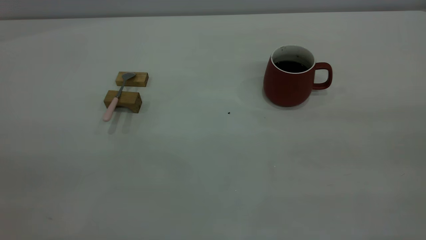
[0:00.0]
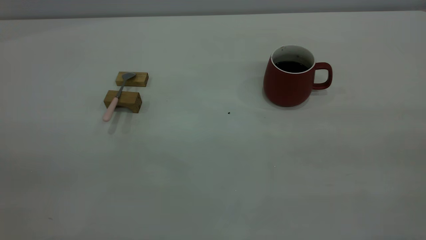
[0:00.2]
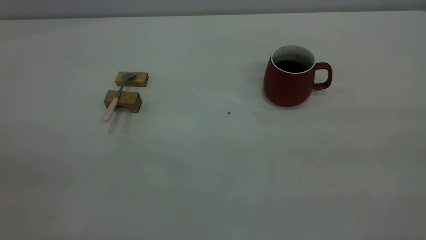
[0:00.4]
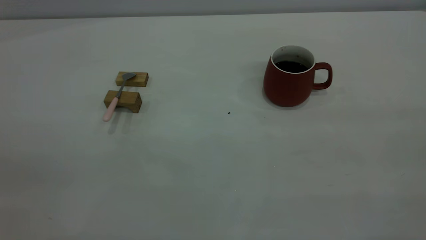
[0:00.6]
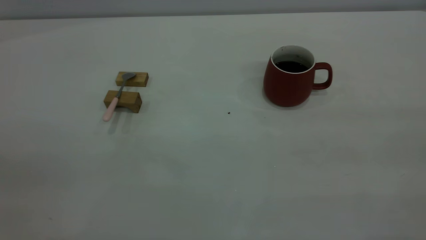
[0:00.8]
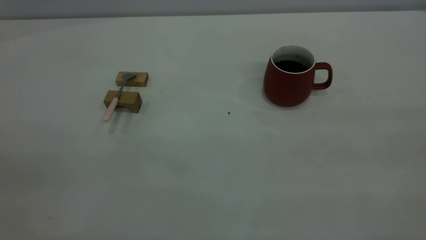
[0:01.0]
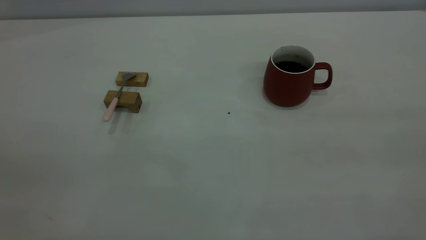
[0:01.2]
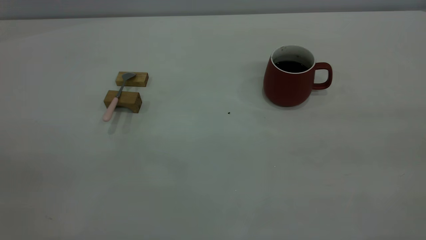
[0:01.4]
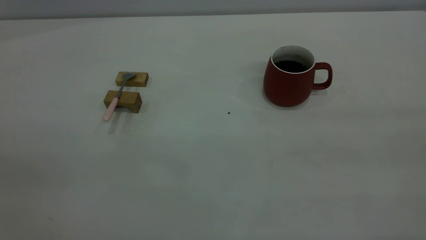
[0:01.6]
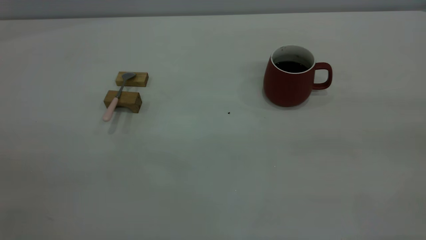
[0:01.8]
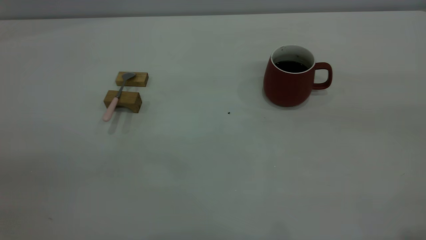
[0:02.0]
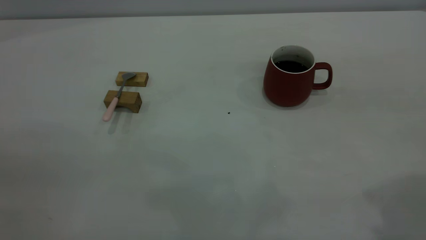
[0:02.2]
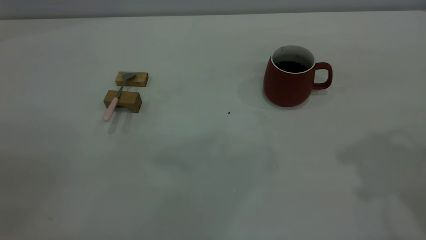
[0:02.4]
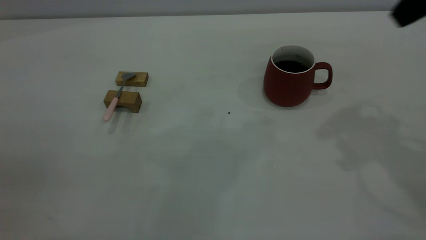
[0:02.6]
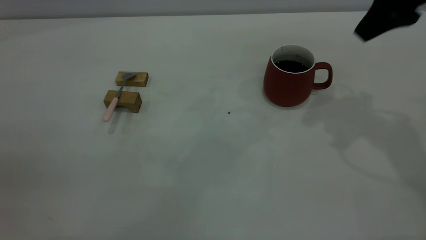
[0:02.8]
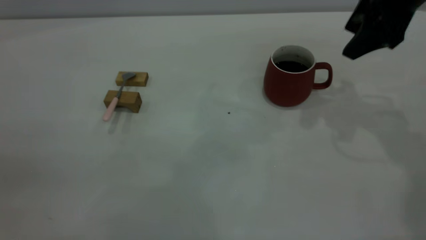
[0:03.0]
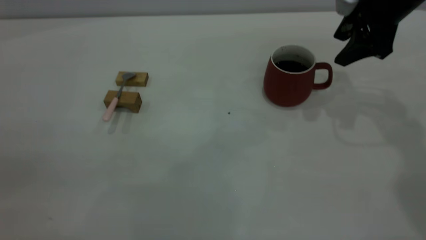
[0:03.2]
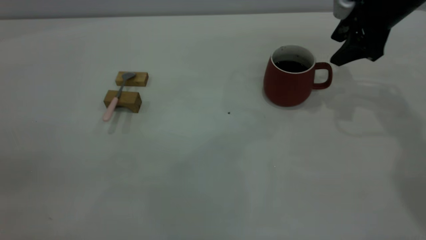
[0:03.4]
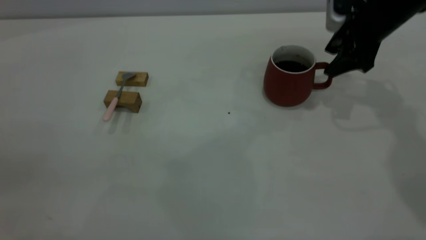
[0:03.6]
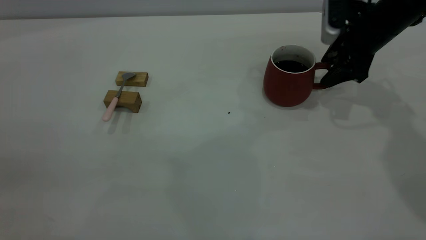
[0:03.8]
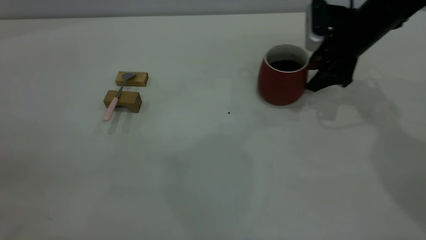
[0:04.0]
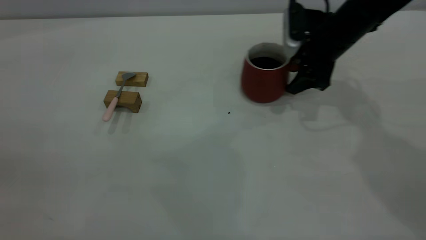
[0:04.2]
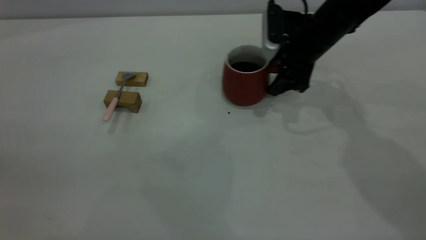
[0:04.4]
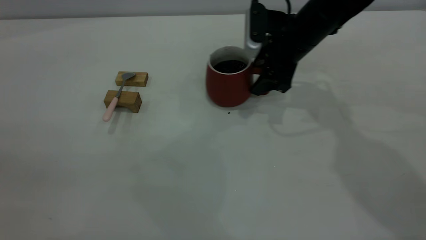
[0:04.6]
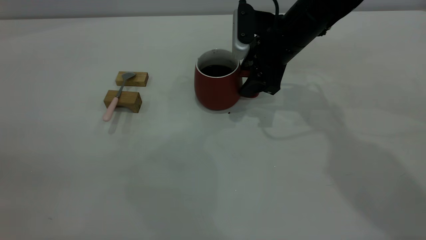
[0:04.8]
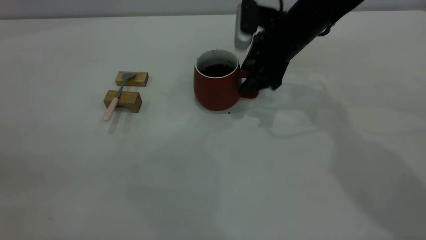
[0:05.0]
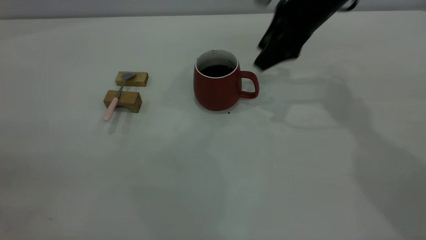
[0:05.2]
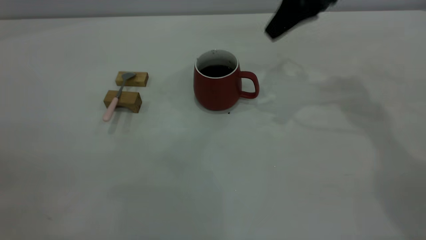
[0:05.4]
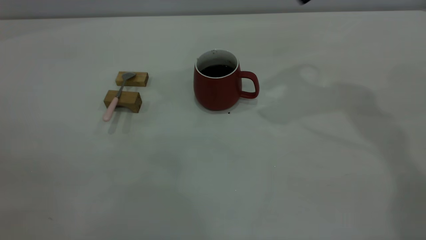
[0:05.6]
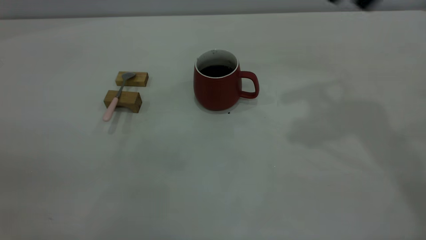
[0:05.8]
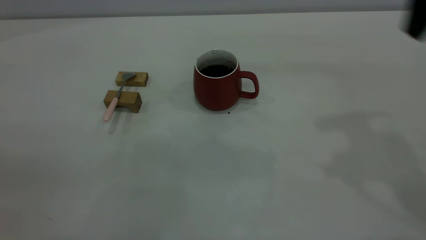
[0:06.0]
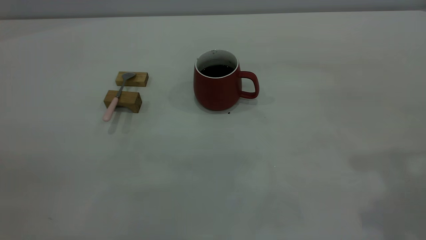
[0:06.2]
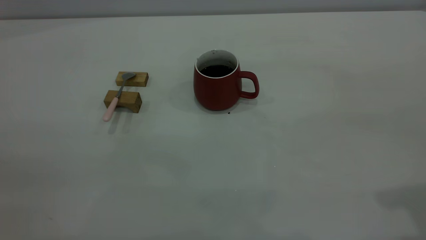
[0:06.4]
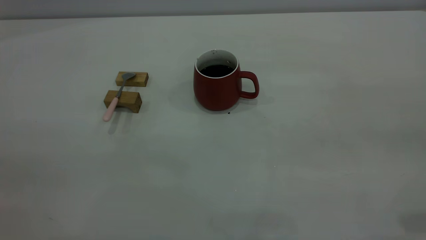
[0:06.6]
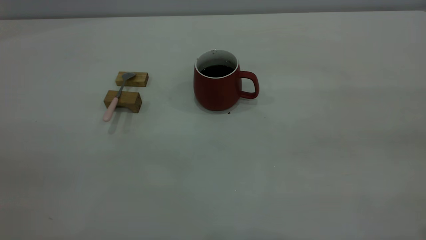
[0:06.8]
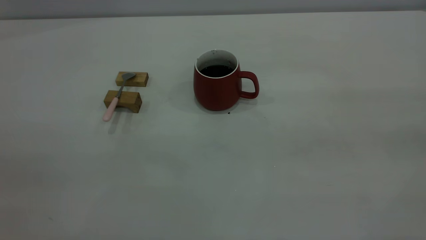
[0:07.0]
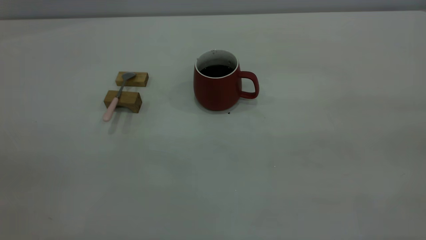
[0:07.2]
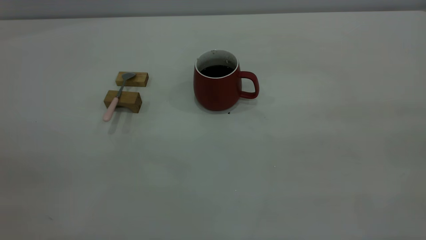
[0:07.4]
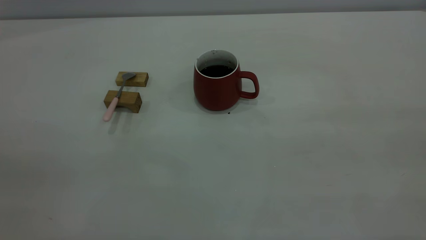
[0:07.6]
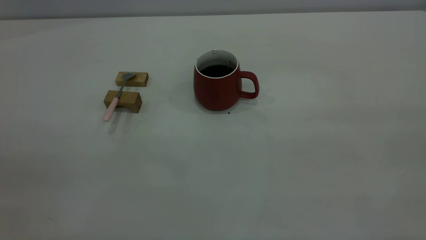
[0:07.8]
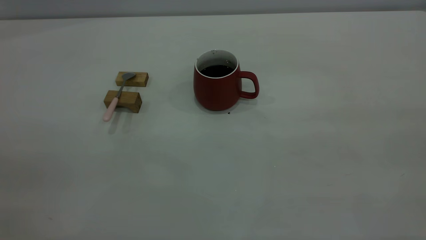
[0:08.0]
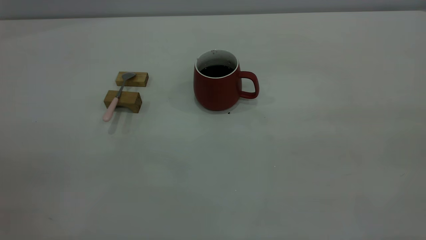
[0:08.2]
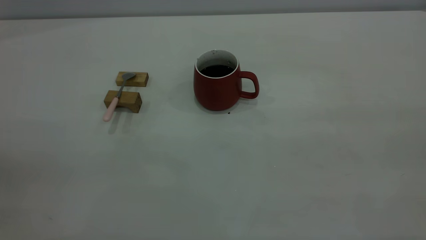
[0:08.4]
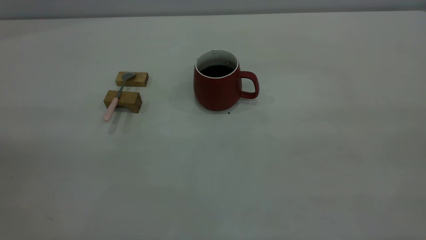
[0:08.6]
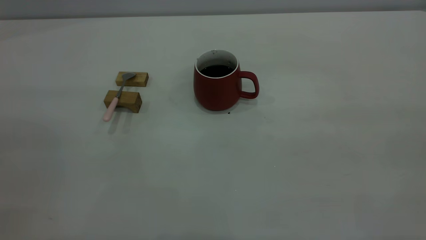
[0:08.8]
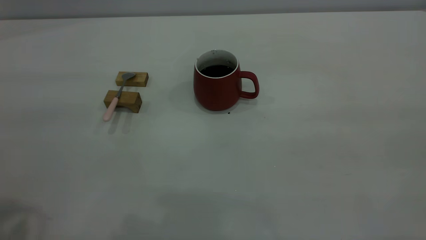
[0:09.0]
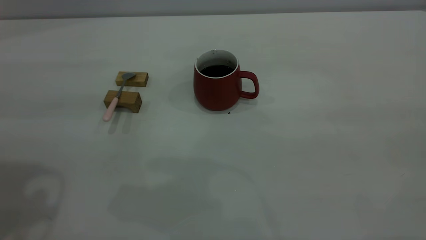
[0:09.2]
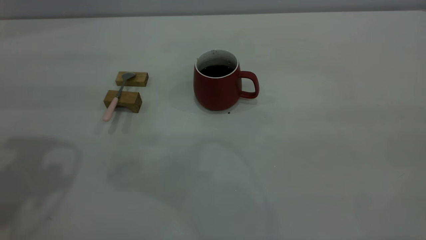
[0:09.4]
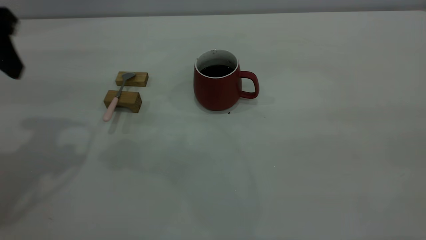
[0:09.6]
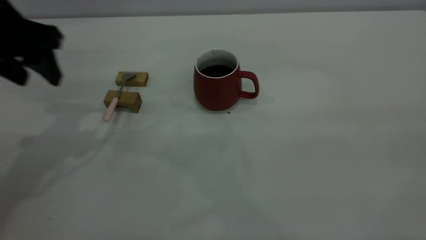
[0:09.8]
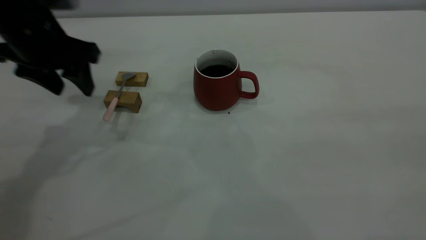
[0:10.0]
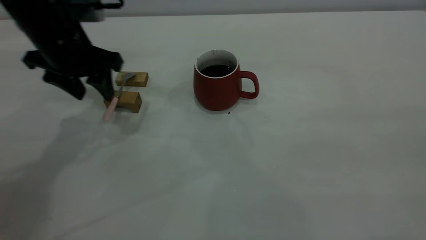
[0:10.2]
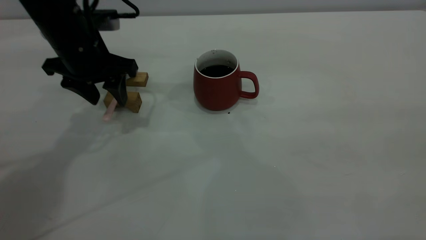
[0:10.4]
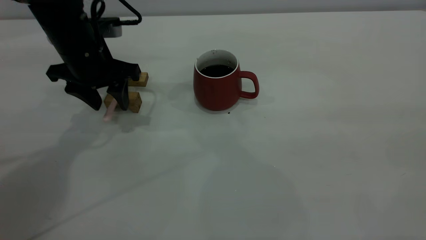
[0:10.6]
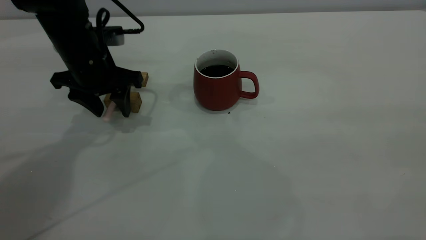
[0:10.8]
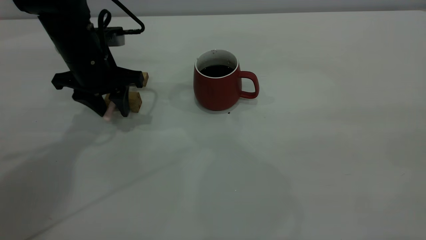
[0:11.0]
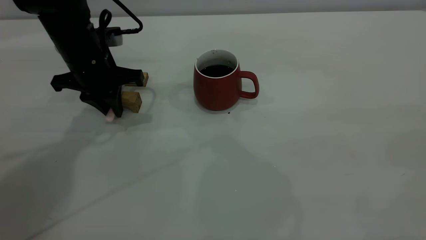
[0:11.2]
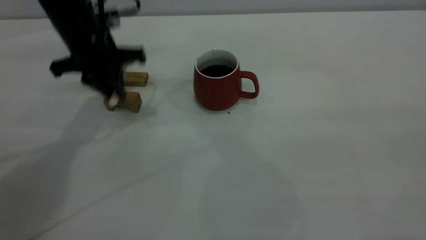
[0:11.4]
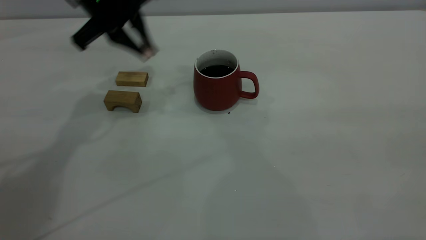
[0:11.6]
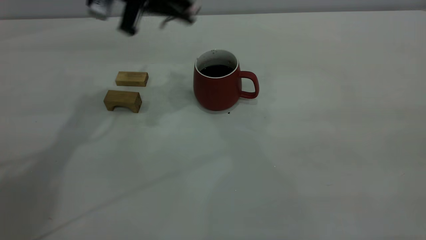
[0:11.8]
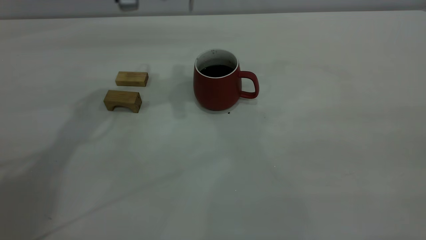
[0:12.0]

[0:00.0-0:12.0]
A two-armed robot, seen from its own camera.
Step, 0:00.0 to 0:05.2: Move the cup with coffee to the center of view.
Step, 0:05.4 to 0:11.4: Pick up the spoon.
0:00.0 to 0:01.6: Both grippers stay about where they are.
0:01.6 to 0:03.0: The right gripper goes some 40 cm forward.
0:03.0 to 0:04.4: The right gripper heads downward, to the left and forward, covering approximately 15 cm.
0:04.4 to 0:06.0: The right gripper goes some 30 cm upward and backward.
0:06.0 to 0:07.6: The right gripper goes some 25 cm backward.
0:09.0 to 0:10.4: The left gripper goes about 30 cm forward and downward.
0:10.4 to 0:12.0: The left gripper travels upward and to the right by some 15 cm, and closes.

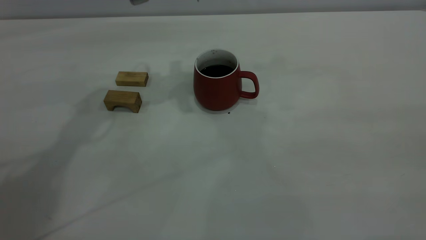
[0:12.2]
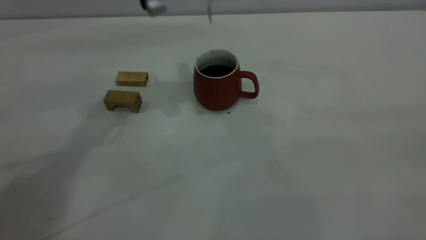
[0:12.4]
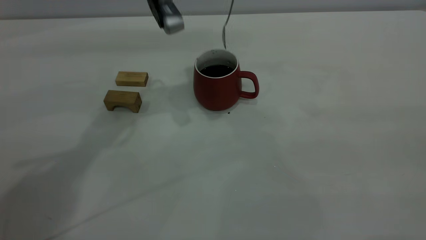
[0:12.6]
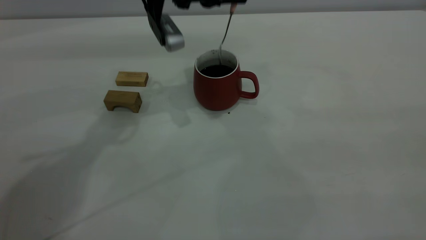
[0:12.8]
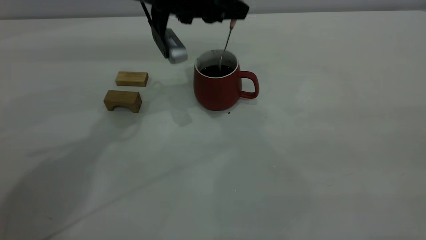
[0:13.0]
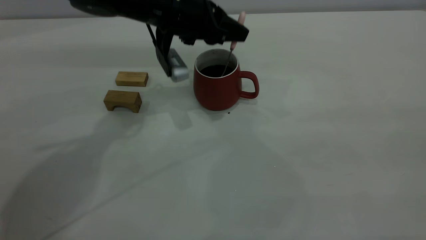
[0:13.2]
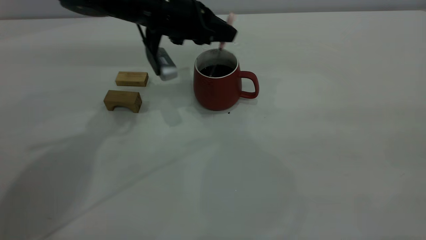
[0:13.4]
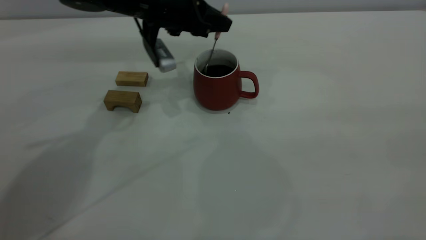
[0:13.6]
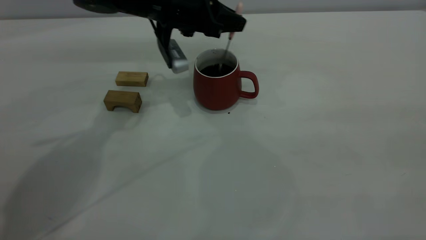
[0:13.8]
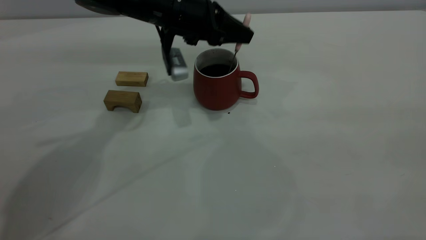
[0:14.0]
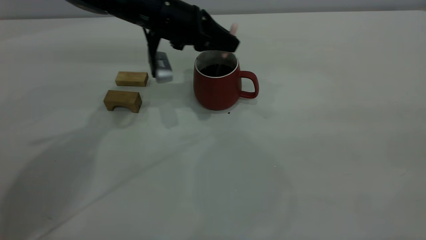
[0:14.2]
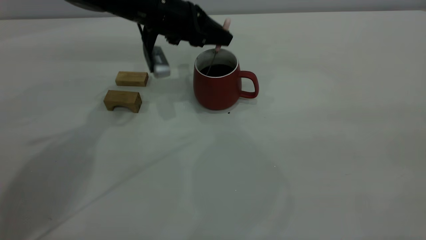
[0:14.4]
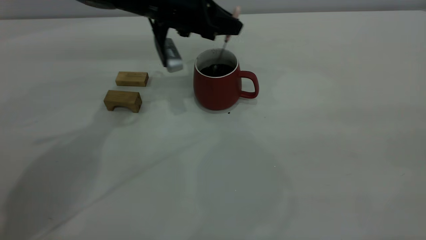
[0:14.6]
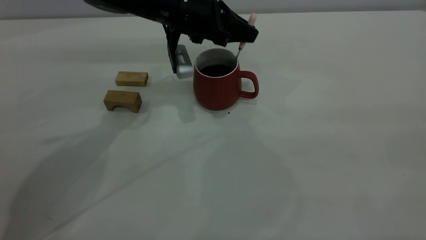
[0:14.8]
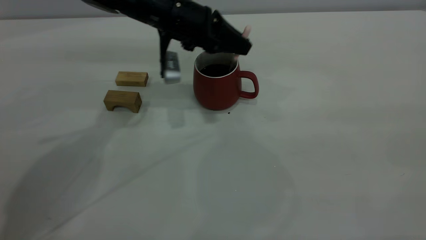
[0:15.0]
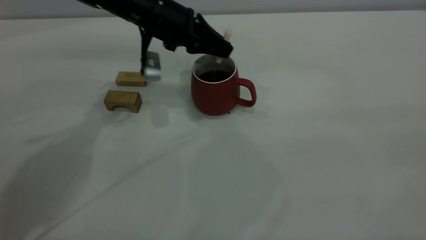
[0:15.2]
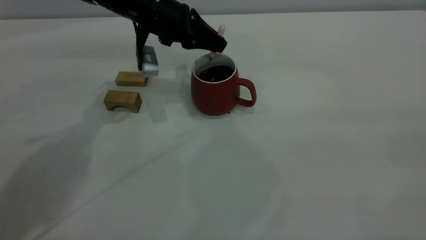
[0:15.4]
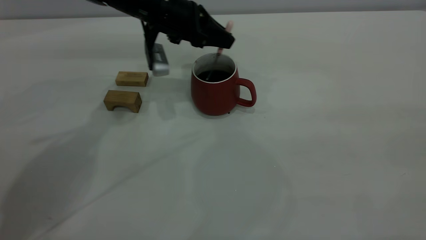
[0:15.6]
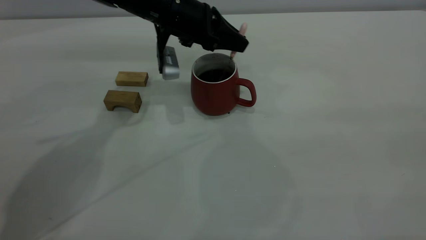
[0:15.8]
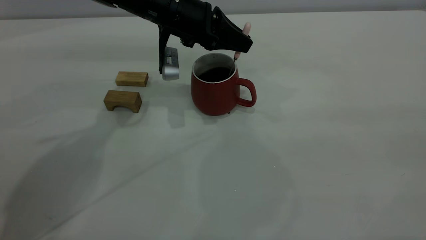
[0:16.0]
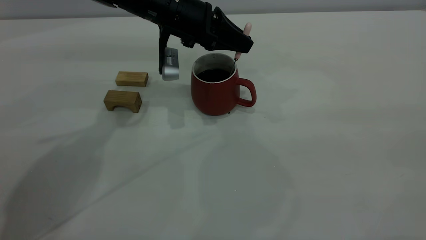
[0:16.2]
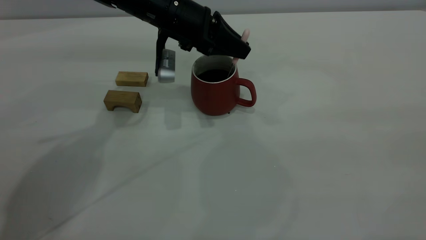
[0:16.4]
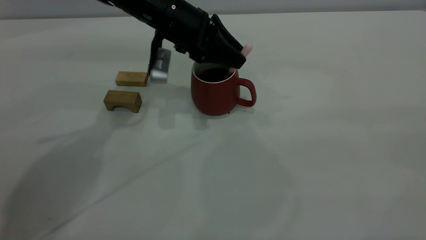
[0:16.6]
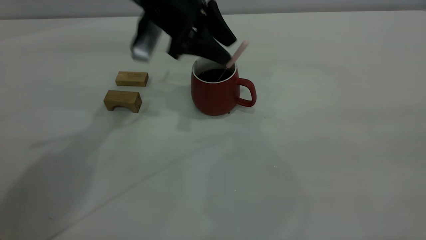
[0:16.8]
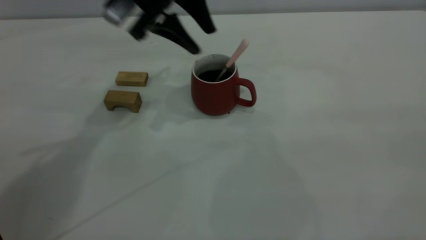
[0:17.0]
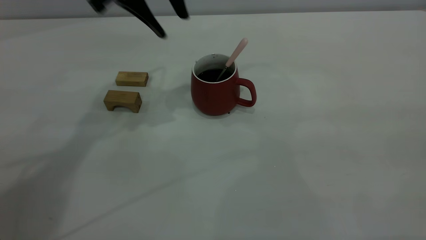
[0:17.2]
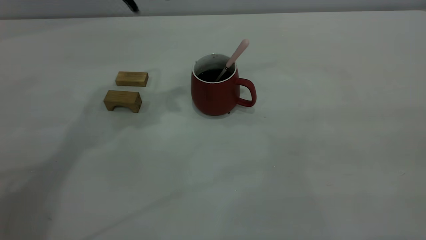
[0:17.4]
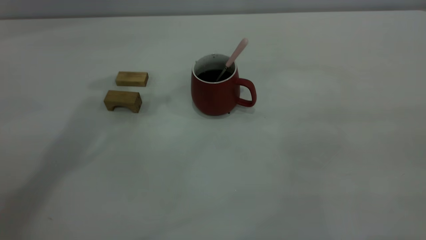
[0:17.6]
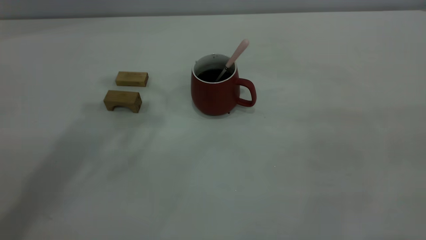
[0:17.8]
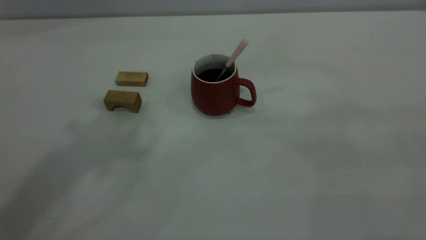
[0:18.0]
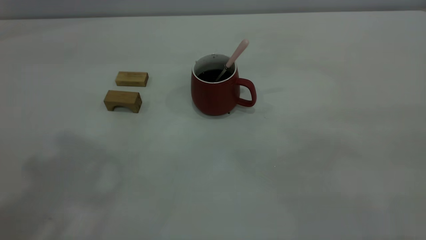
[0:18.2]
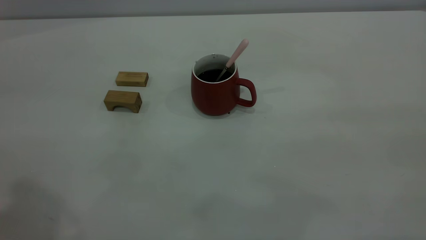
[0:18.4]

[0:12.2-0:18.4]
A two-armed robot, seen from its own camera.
Step, 0:12.2 to 0:17.0: Stir the coffee in the cup.
0:12.2 to 0:13.8: The left gripper moves downward, roughly 10 cm.
0:13.8 to 0:15.4: The grippers make only small movements.
0:15.4 to 0:16.8: The left gripper shifts some 5 cm upward, and opens its fingers.
0:16.8 to 0:18.4: The left gripper moves backward, upward and to the left, roughly 40 cm.
